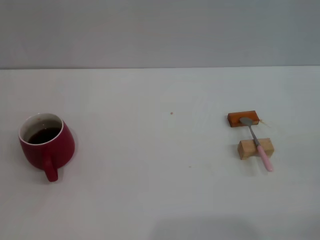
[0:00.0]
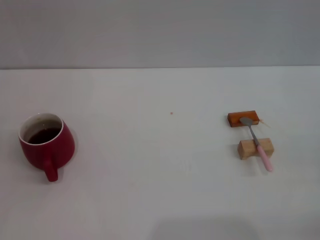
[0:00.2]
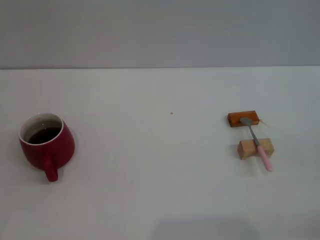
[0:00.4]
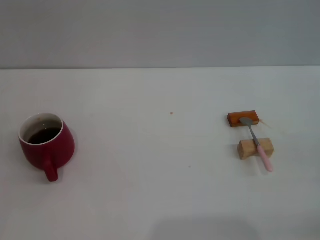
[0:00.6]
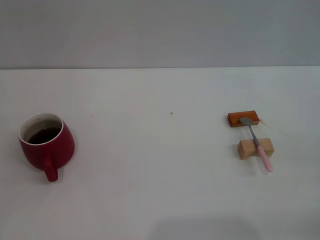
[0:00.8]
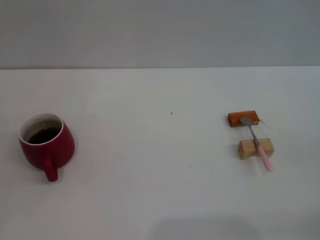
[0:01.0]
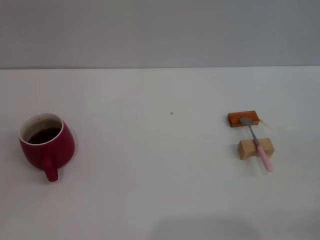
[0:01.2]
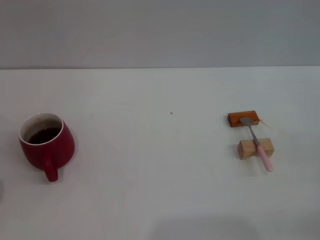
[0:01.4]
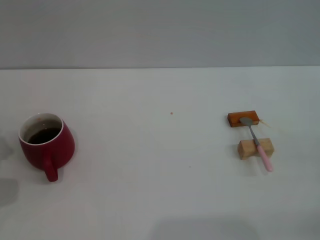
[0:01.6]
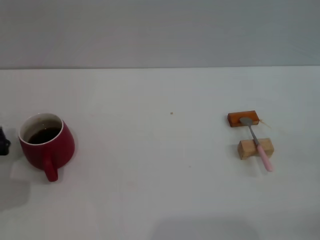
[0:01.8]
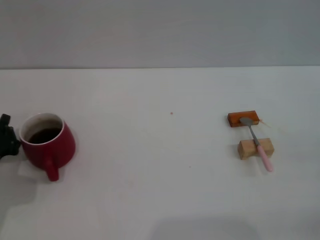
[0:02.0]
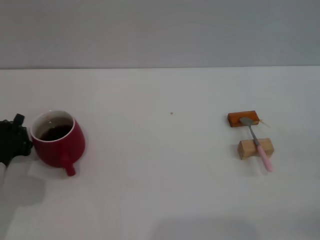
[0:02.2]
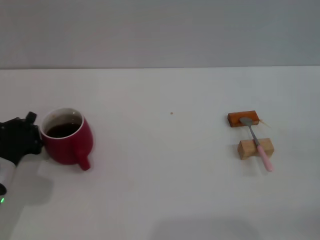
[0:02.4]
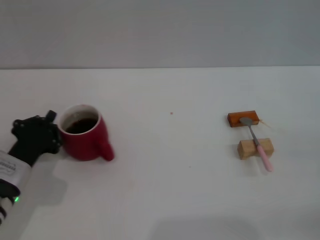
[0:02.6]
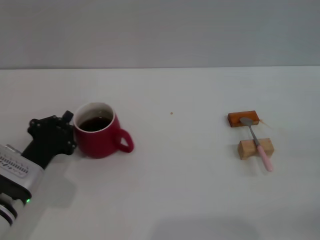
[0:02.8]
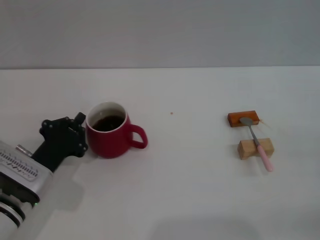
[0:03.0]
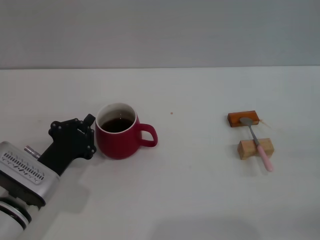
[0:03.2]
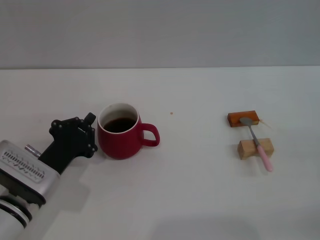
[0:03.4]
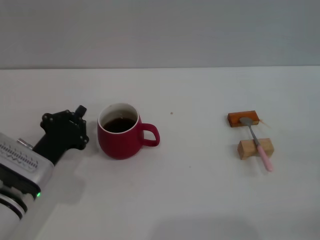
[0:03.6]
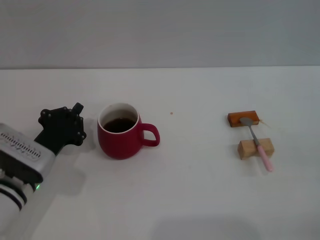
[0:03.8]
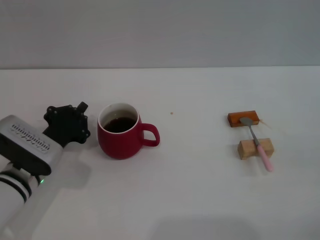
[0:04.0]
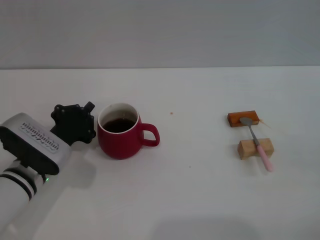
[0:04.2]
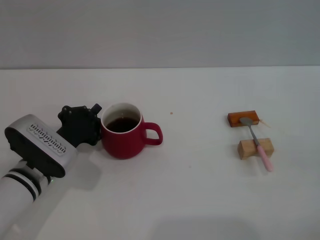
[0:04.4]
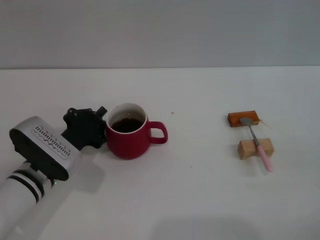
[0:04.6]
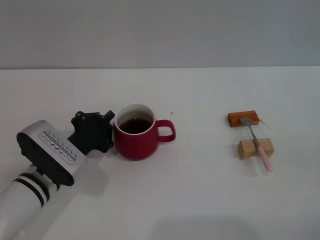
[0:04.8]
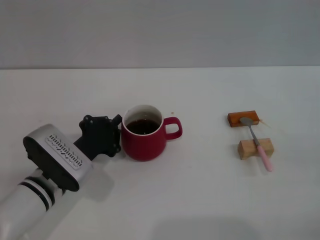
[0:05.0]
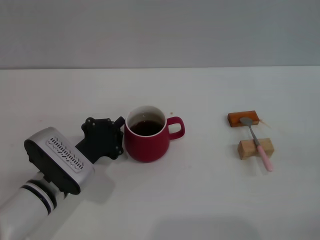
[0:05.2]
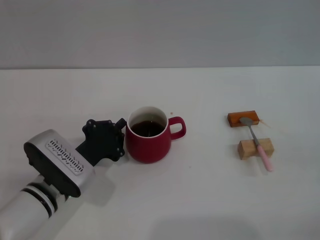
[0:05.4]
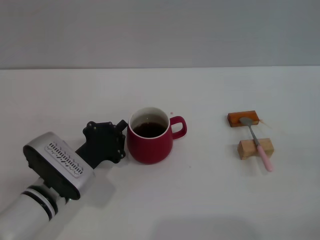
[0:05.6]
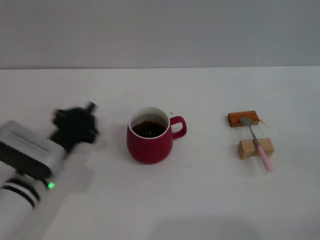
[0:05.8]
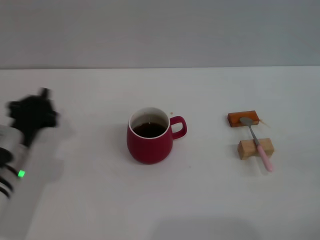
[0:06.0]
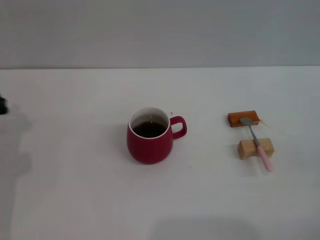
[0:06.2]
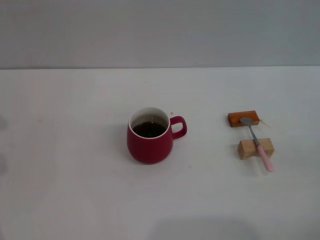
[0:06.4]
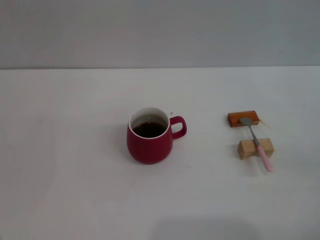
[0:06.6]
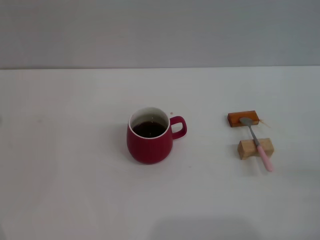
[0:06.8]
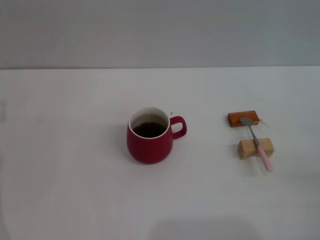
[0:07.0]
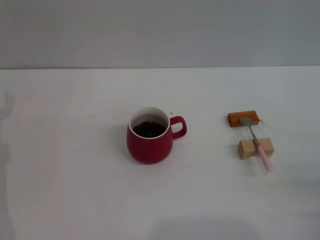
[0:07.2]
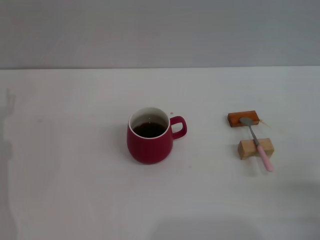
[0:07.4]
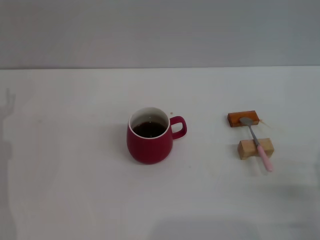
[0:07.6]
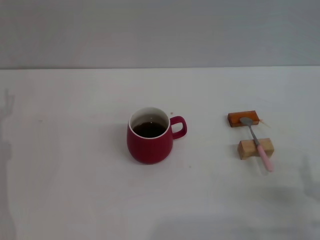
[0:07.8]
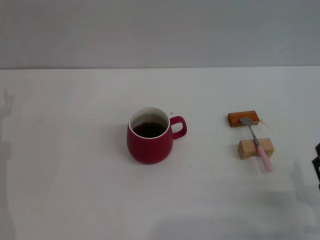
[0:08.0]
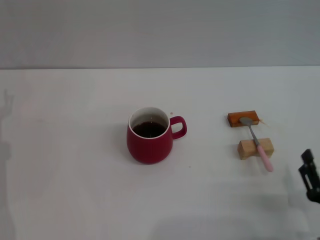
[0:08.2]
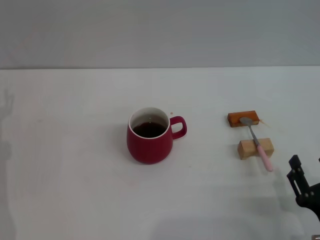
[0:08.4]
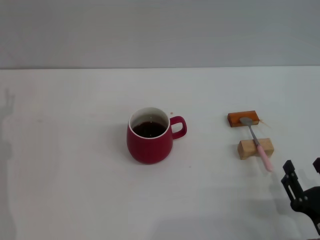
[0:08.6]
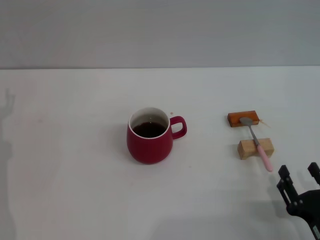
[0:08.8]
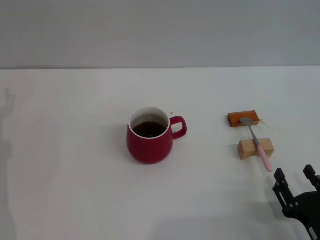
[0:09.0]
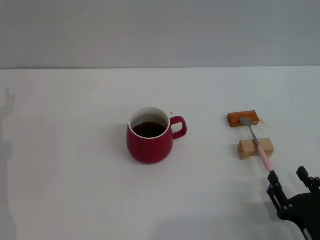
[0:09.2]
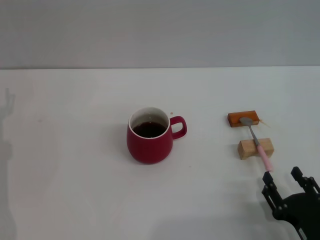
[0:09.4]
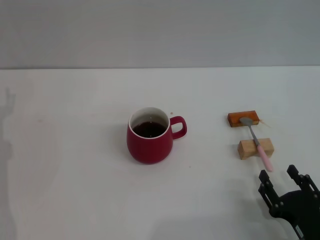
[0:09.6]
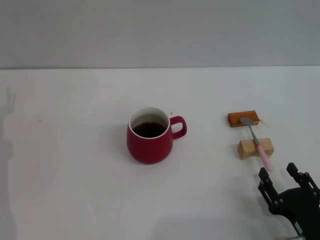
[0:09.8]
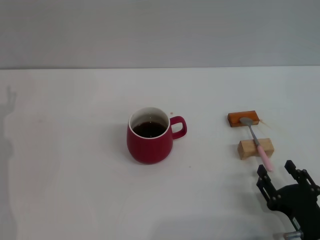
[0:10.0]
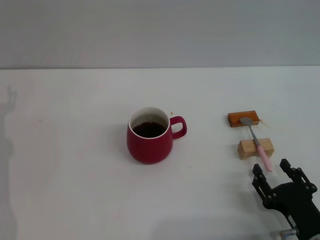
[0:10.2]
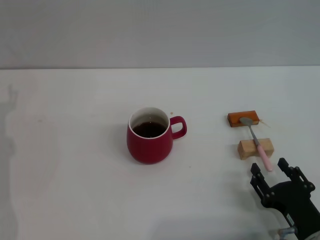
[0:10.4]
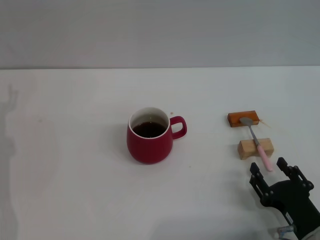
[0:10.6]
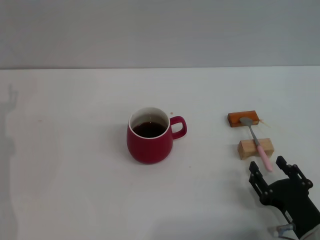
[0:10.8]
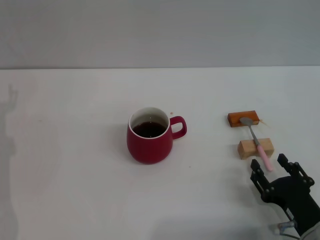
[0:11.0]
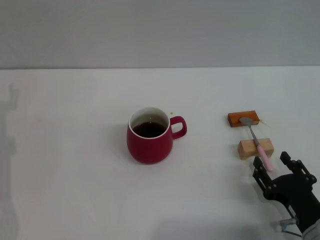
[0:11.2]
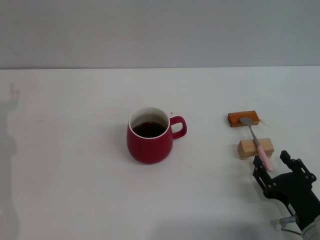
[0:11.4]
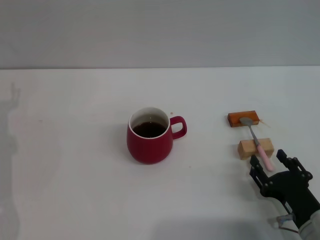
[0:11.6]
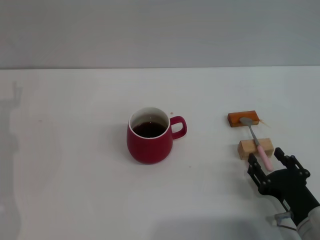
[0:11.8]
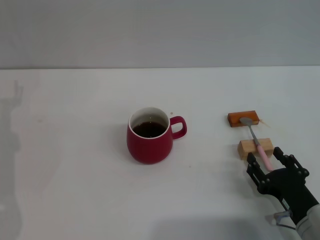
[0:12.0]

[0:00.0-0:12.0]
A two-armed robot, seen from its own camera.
Task of the whole recording: Move the red cup to the center, lift the pink spoon, stir it three times in the cup, and put the spoon into the cup.
Step, 0:00.0 to 0:05.6: Move the cup with coffee to the center of view with the left gripper.
0:01.6 to 0:03.0: The left gripper moves to the right, some 10 cm.
0:03.0 to 0:04.4: The grippers move only a little.
0:06.0 to 0:07.6: The left gripper heads to the left, covering roughly 5 cm, and opens.
0:07.6 to 0:09.0: The right gripper shifts some 5 cm to the left.
0:09.0 to 0:12.0: The grippers stay close to where they were, moving slightly.

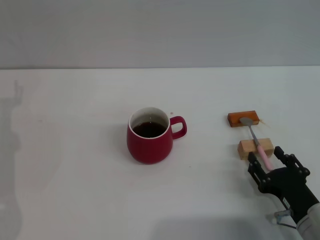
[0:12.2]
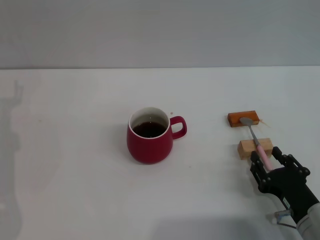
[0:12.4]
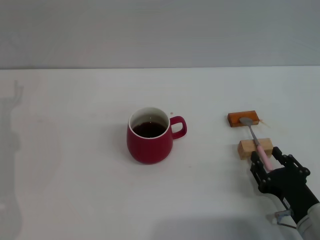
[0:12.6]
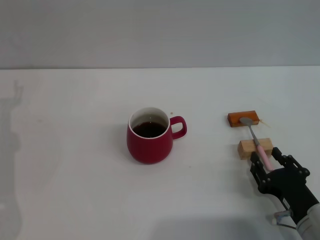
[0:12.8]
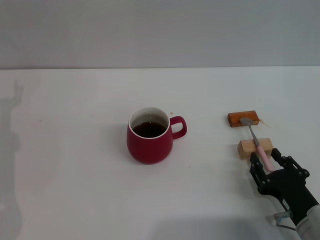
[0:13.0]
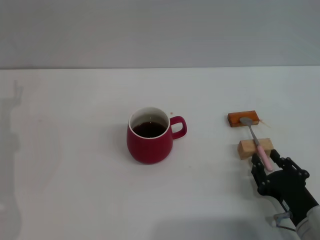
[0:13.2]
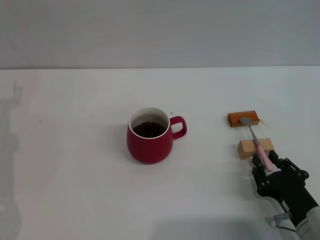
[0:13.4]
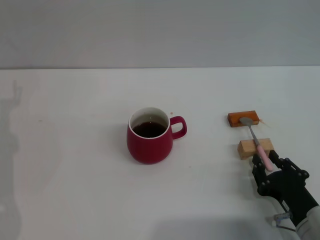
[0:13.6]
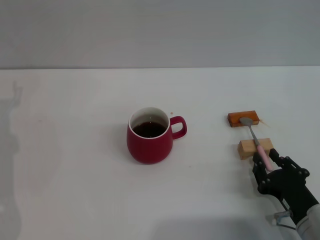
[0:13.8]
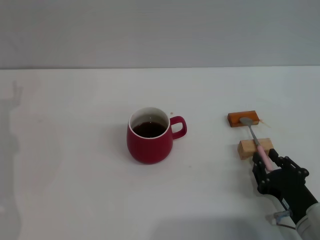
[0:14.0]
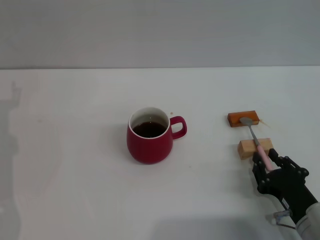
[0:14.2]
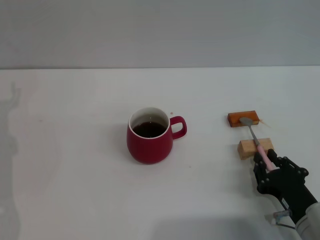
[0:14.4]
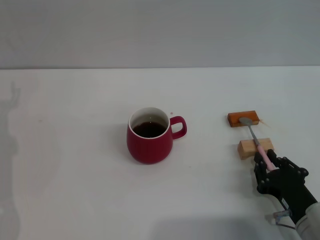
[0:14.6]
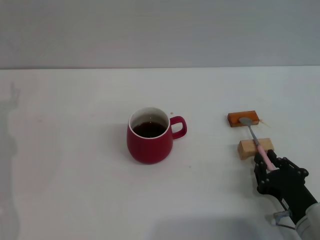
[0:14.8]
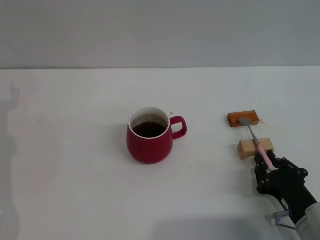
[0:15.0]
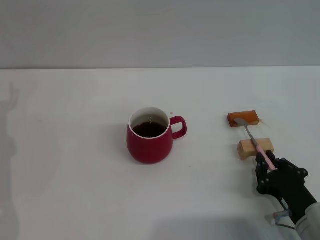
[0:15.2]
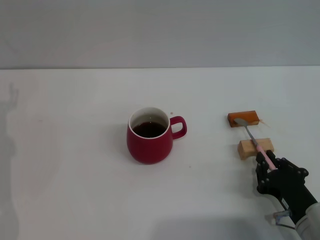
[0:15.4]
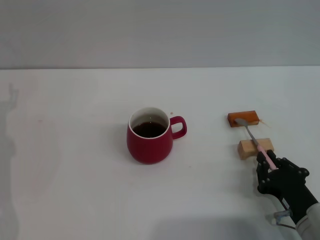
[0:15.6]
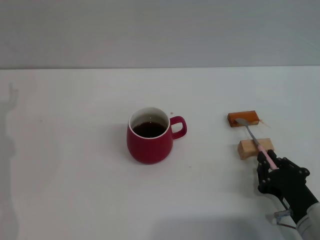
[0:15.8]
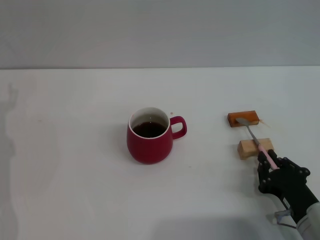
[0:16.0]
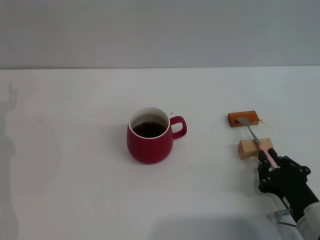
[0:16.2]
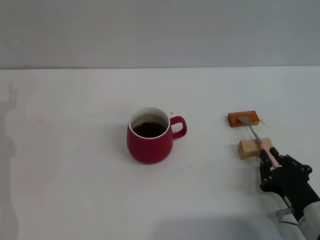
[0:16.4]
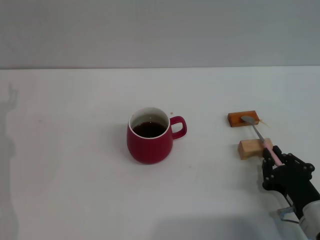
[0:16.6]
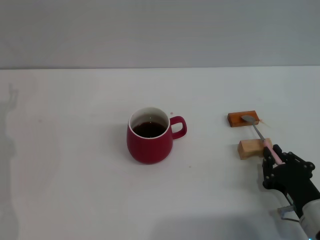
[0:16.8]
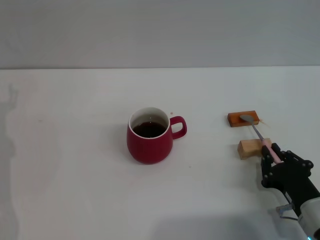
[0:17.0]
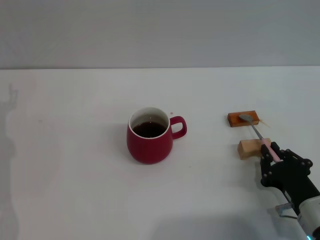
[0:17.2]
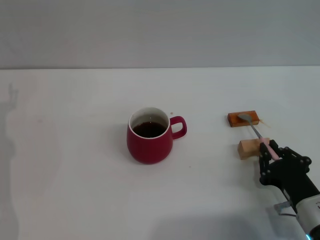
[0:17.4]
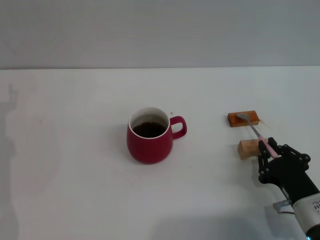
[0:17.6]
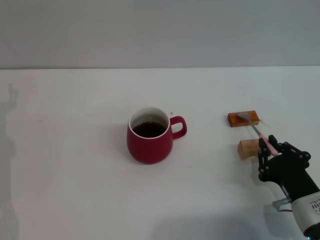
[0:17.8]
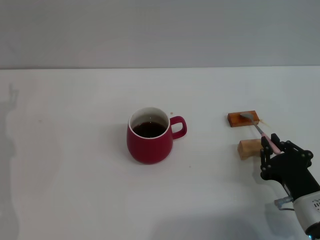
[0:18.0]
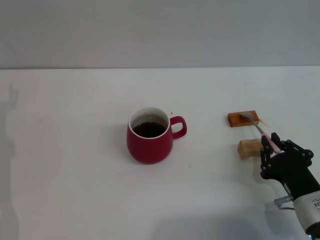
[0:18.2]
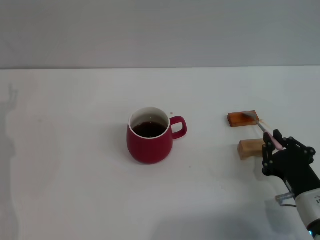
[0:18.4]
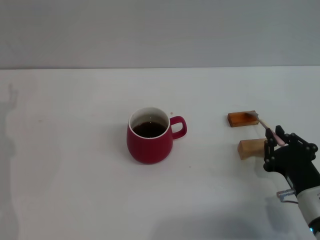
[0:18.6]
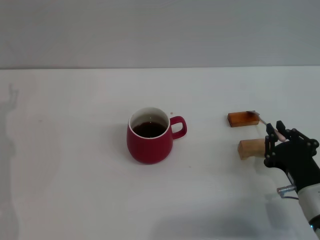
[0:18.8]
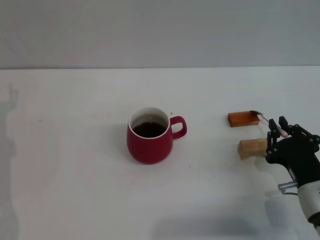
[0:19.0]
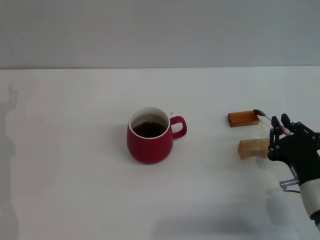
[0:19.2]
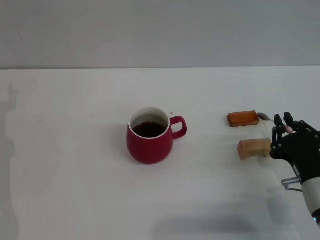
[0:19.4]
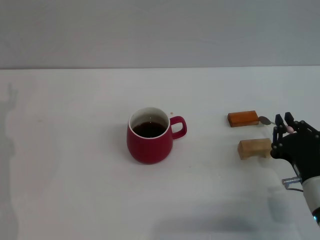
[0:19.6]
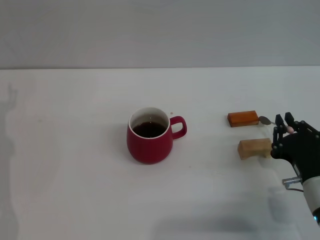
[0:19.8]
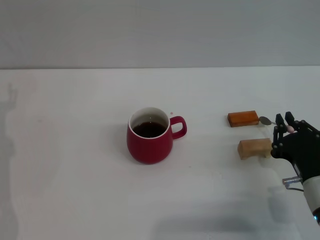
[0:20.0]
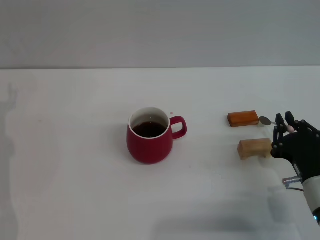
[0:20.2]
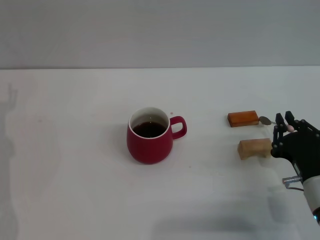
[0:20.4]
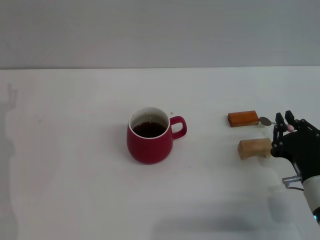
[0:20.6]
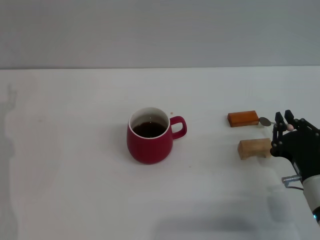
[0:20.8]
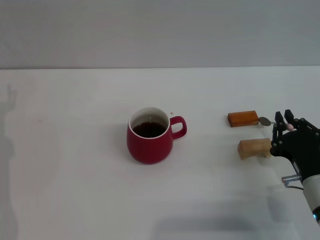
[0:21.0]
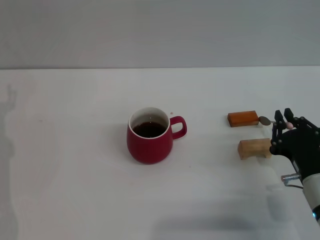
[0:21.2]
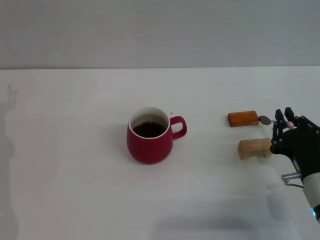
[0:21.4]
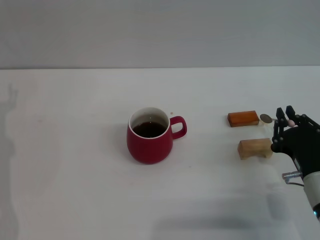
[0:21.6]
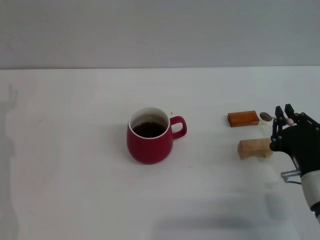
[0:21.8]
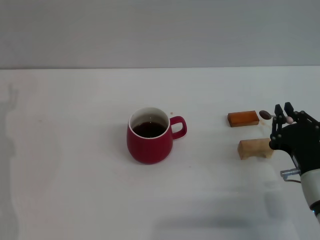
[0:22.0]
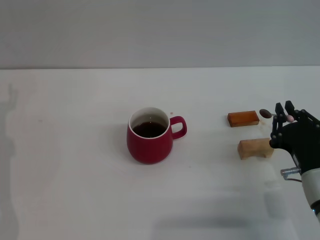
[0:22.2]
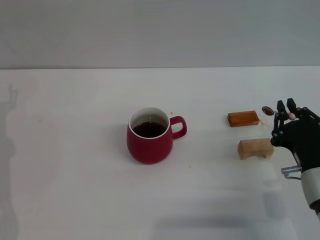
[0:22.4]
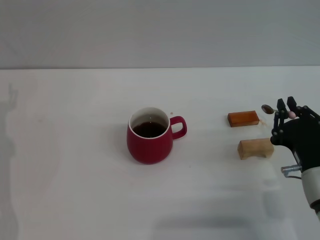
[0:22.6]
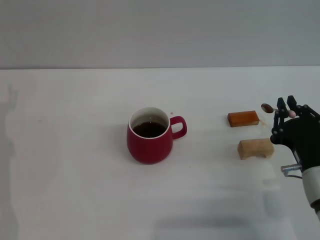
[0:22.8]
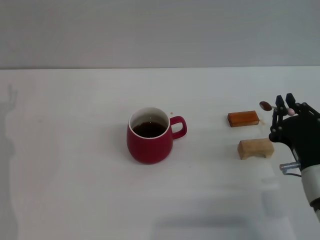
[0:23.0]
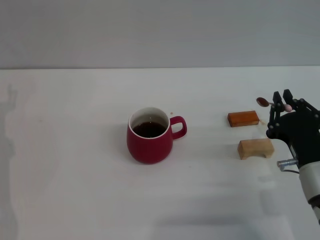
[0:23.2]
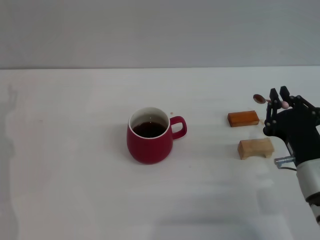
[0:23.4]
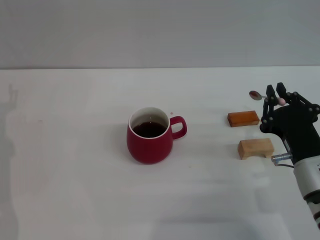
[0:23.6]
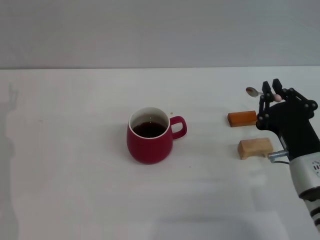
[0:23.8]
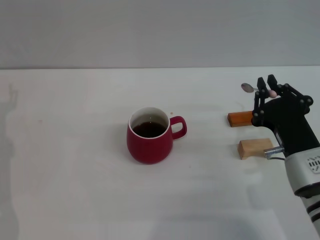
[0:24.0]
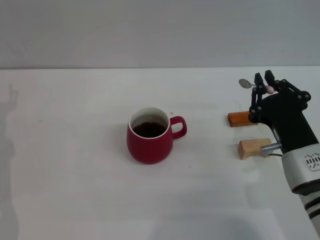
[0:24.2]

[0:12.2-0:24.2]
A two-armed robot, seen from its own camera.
Task of the whole recording: Move the red cup to the center, lift the pink spoon, stir it three times in the cup, and put the spoon into the cup.
Step, 0:12.2 to 0:22.6: Pick up the spoon with the right gripper.
0:12.2 to 0:13.8: The right gripper closes up.
0:13.8 to 0:15.2: The right gripper closes its fingers.
0:15.2 to 0:19.8: There are only small adjustments of the grippers.
0:19.8 to 0:21.2: Both grippers stay put.
0:21.2 to 0:22.6: The grippers move only a little.
0:22.6 to 0:24.2: The grippers stay close to where they were, moving slightly.
